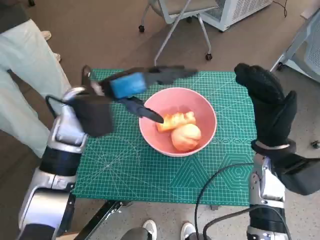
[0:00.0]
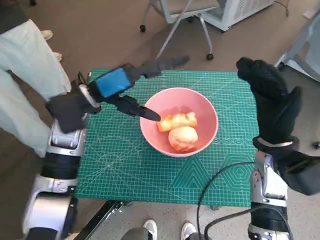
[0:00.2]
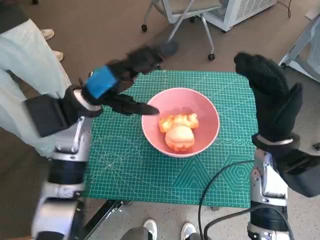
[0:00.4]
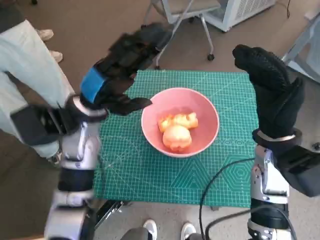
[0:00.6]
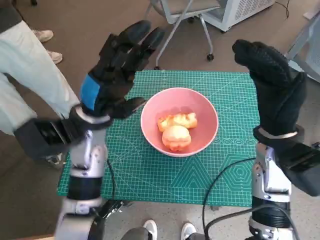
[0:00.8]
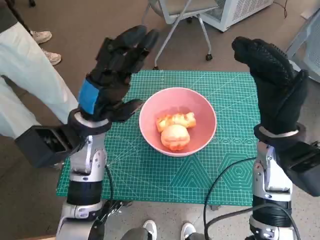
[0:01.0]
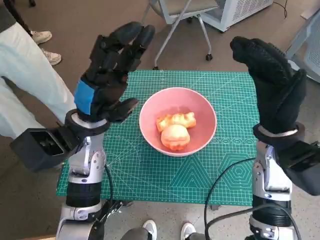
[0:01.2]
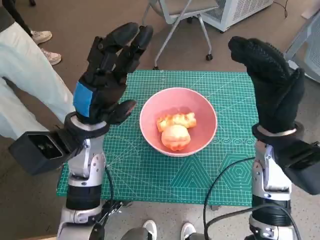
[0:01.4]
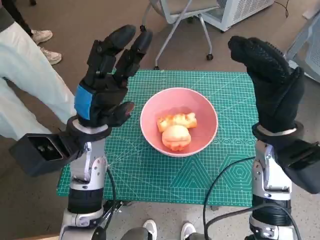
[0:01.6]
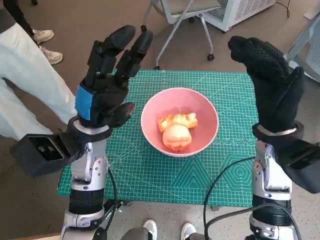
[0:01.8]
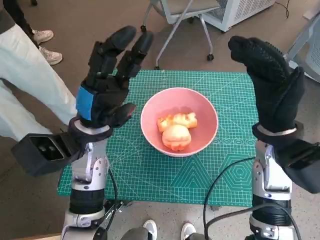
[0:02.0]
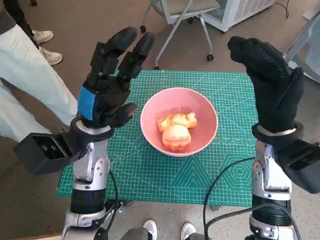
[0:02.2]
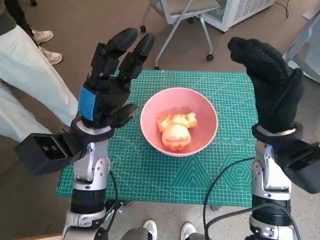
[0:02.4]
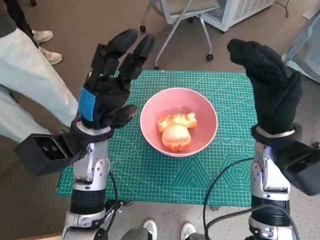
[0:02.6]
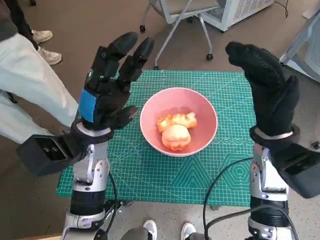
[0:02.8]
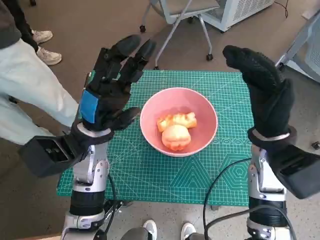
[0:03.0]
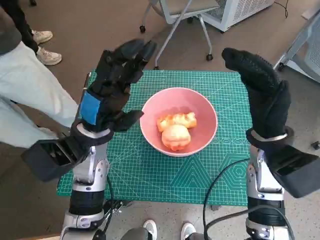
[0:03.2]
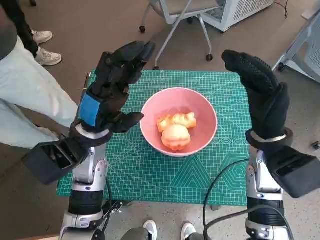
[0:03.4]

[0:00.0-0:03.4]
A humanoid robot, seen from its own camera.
Task of the whole recording: Push the bowl into the center of the table and put the bread into the bowl.
0:00.0 to 0:01.6: The left hand moves approximately 5 cm, while the right hand heads upward, covering approximately 5 cm.

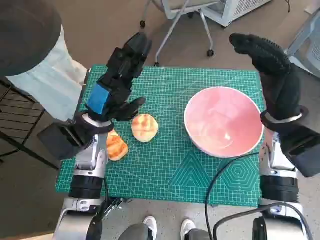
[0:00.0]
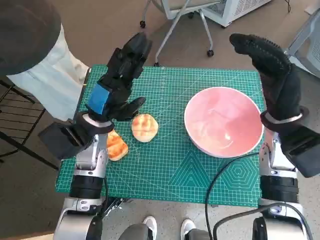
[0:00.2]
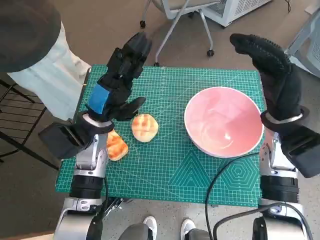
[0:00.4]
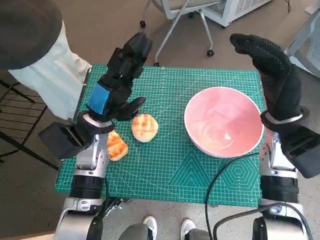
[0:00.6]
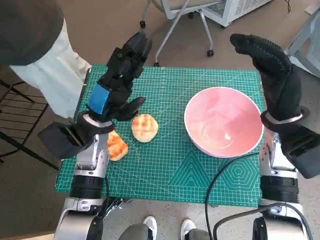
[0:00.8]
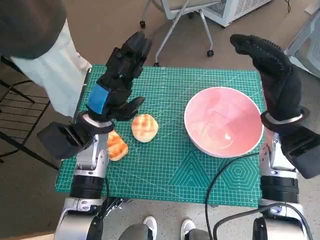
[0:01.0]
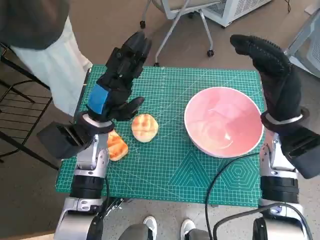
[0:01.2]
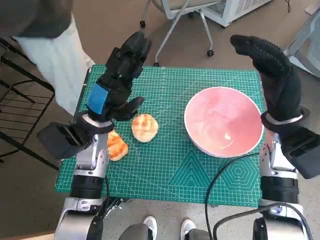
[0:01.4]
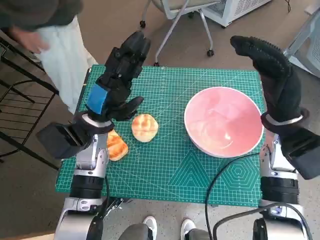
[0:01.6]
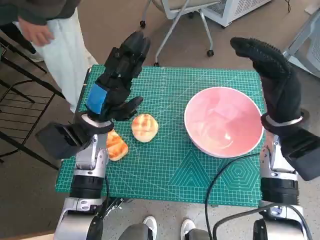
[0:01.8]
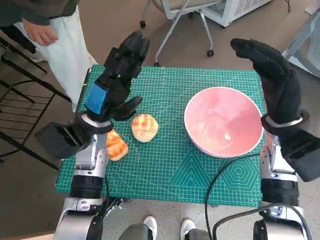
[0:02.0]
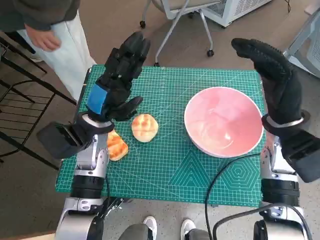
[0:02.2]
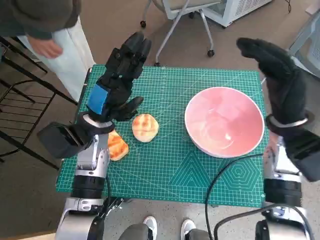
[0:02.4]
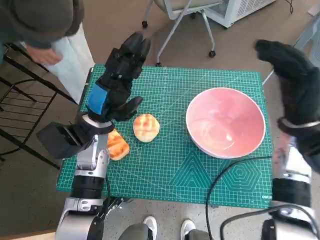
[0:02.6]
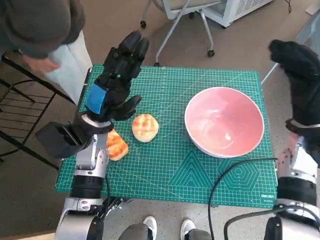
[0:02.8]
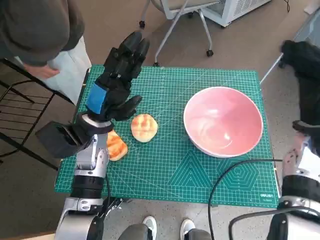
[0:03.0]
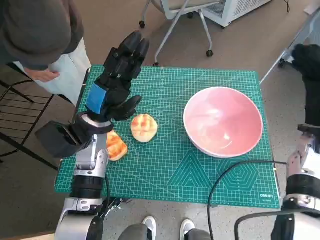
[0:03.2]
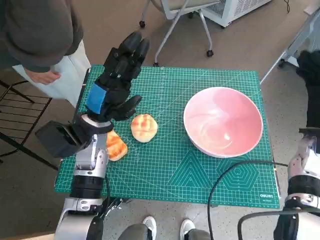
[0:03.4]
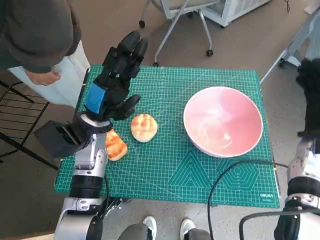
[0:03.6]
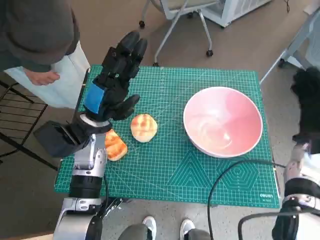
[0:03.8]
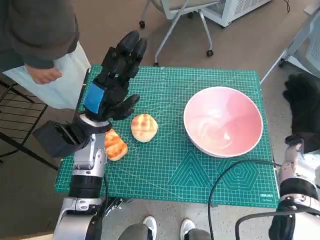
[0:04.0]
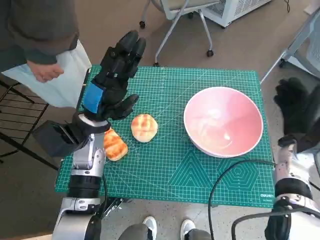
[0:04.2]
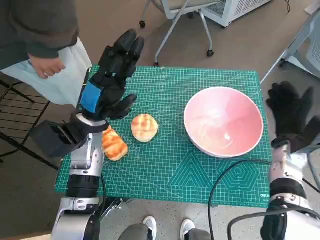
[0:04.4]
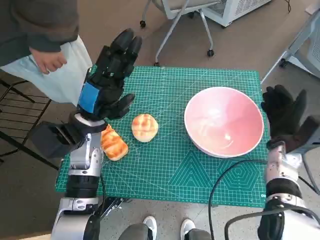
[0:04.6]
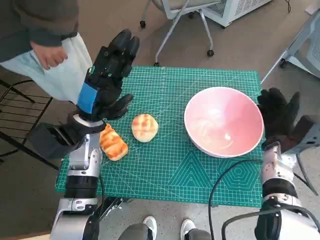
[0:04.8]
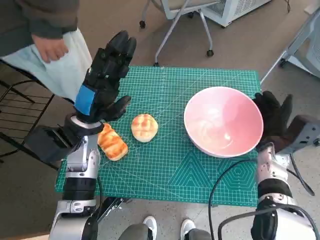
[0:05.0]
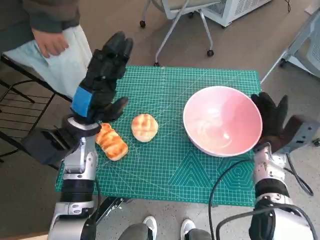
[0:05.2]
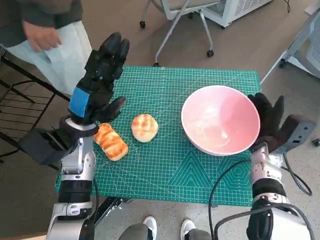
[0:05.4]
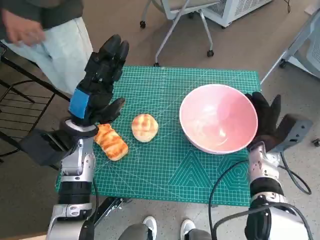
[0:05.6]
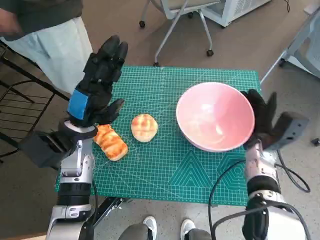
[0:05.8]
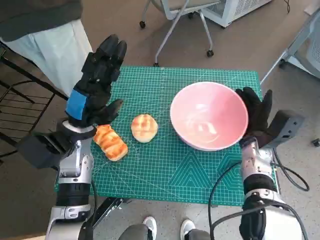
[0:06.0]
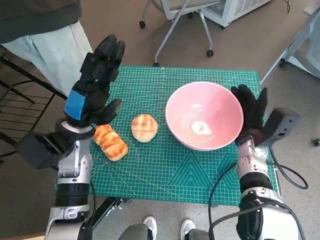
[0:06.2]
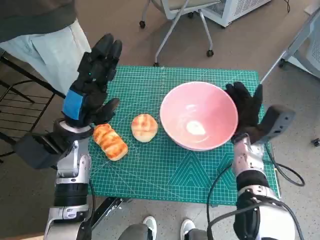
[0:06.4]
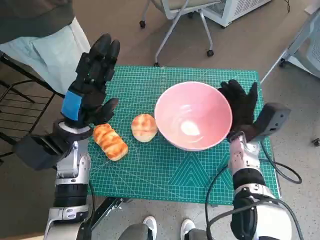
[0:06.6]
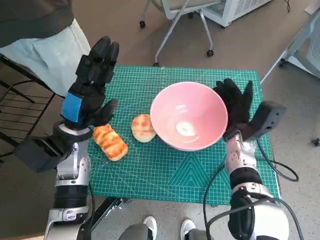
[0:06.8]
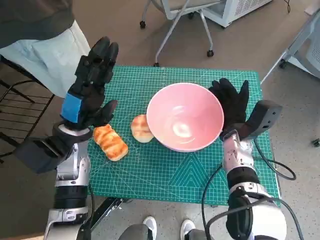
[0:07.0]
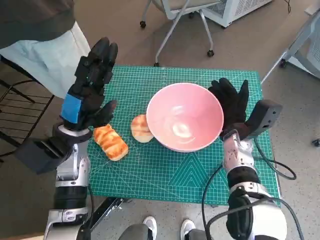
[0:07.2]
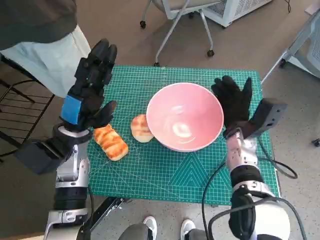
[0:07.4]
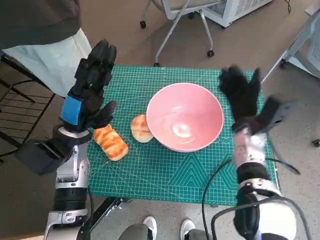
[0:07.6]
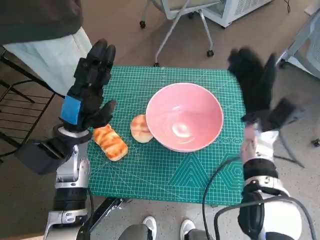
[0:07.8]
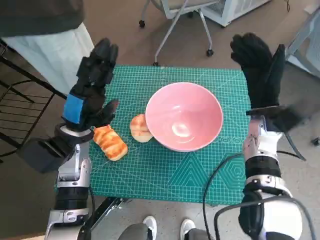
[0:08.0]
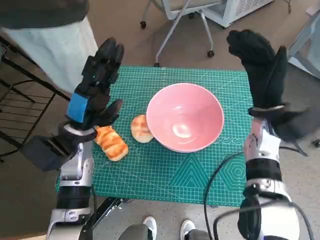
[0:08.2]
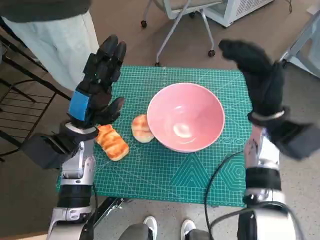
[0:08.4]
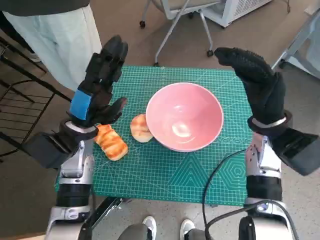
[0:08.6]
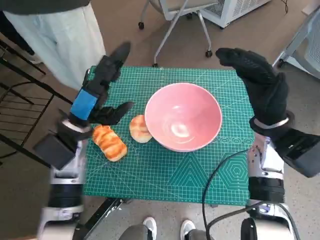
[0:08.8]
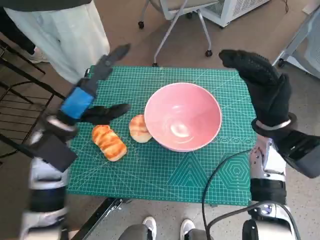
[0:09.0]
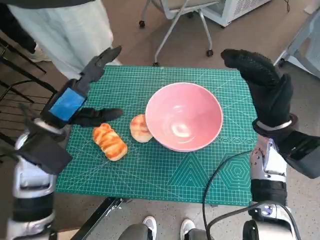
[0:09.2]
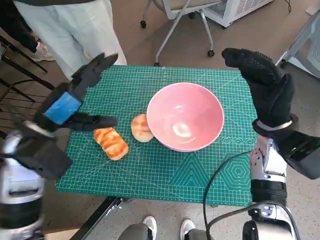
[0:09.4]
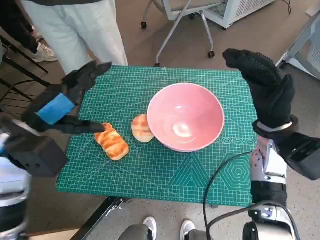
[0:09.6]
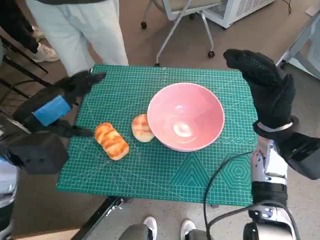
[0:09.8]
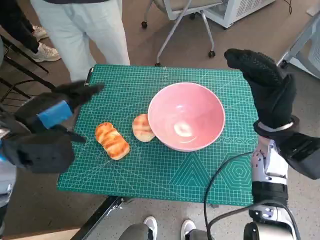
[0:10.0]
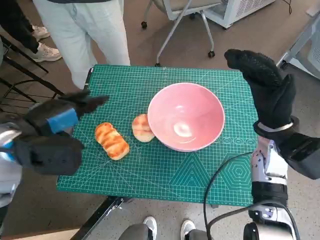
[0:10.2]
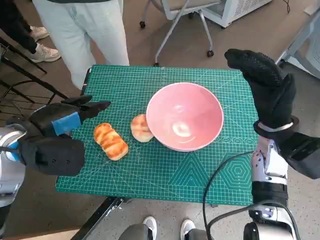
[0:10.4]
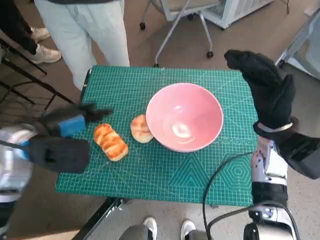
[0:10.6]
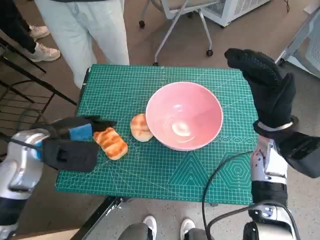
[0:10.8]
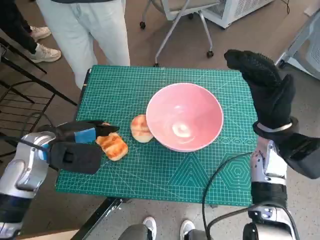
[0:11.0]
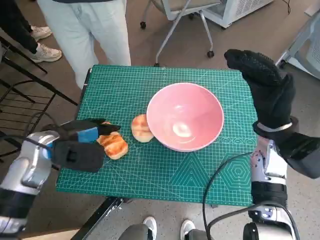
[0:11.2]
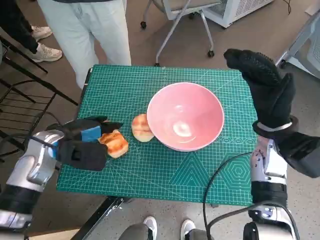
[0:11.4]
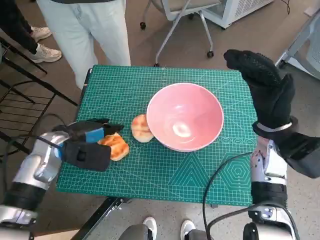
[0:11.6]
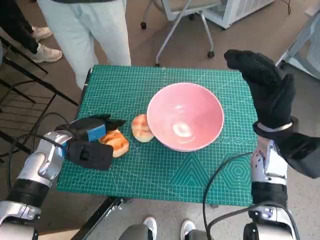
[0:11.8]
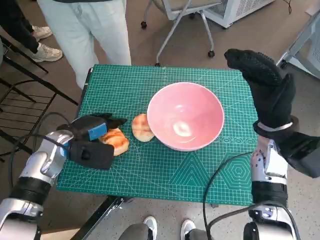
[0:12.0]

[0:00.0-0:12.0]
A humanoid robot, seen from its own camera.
Task of the whole recording: Push the bowl into the center of the table and put the bread into the bowl.
Step, 0:00.0 to 0:07.6: Move the pink bowl to the center of table with right hand.
0:01.6 to 0:03.0: The right hand moves to the right, approximately 5 cm.
0:03.0 to 0:04.4: The right hand travels downward by some 10 cm.
0:04.4 to 0:06.0: The right hand moves to the left, roughly 5 cm.
0:07.6 to 0:09.0: The right hand heads upward, covering about 10 cm.
0:09.0 to 0:10.4: The left hand ends up some 5 cm from where it was.
0:10.4 to 0:12.0: The left hand moves downward, about 10 cm.

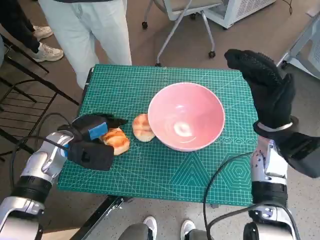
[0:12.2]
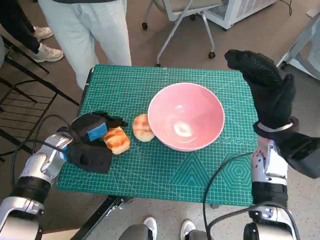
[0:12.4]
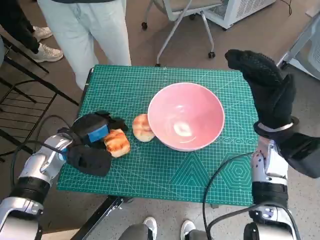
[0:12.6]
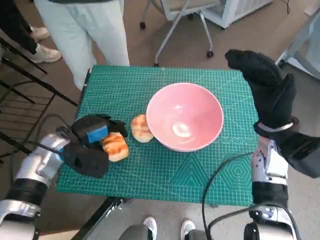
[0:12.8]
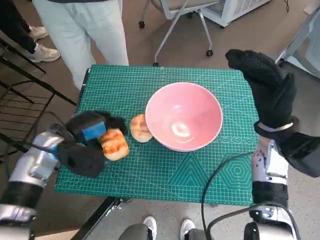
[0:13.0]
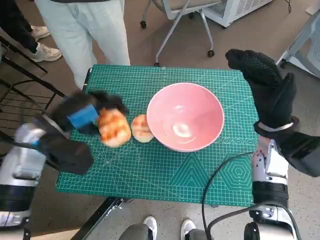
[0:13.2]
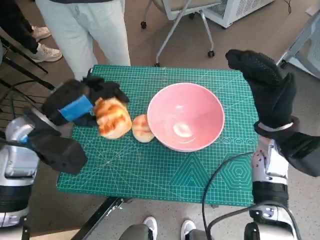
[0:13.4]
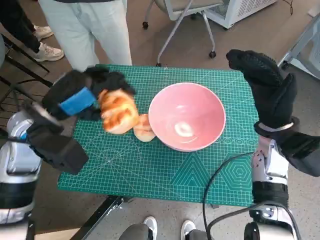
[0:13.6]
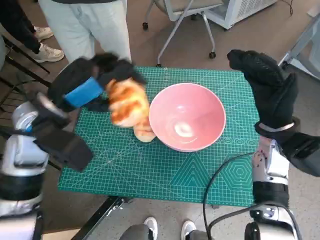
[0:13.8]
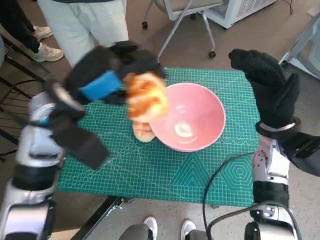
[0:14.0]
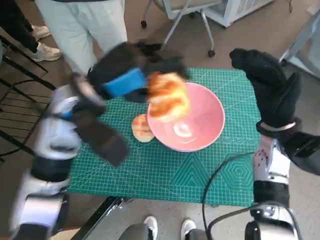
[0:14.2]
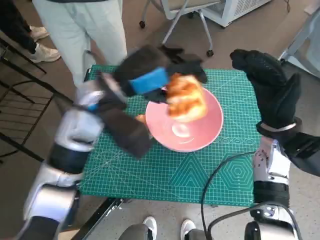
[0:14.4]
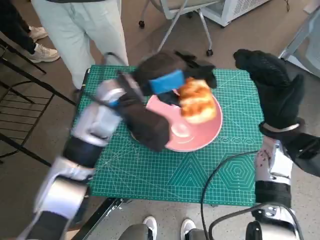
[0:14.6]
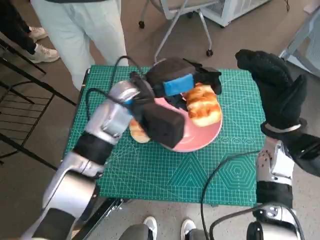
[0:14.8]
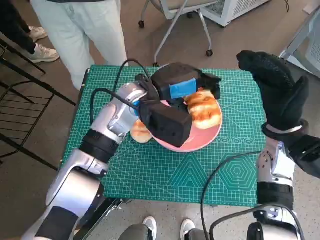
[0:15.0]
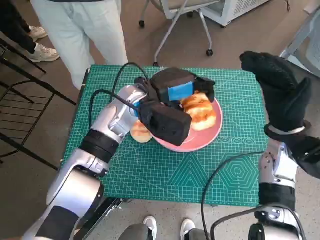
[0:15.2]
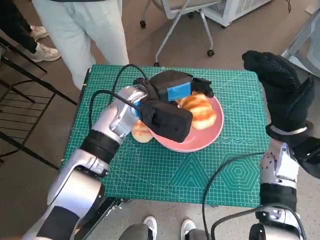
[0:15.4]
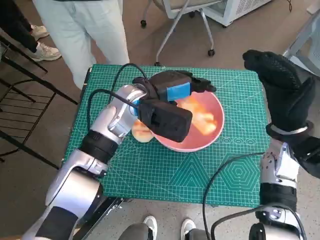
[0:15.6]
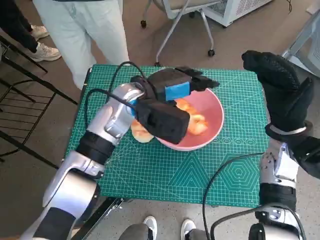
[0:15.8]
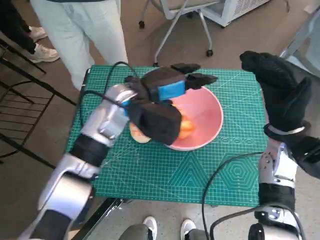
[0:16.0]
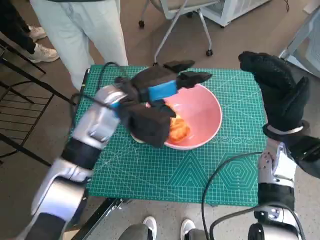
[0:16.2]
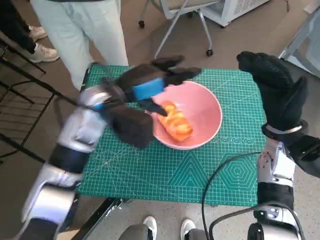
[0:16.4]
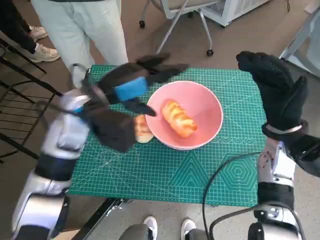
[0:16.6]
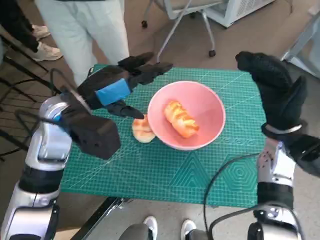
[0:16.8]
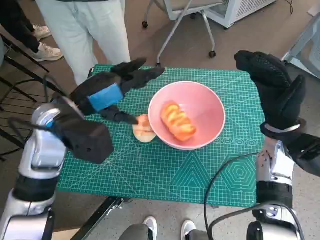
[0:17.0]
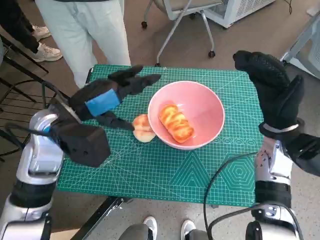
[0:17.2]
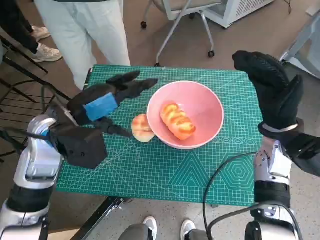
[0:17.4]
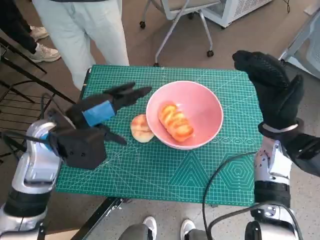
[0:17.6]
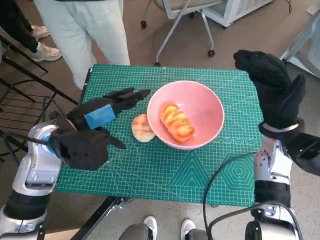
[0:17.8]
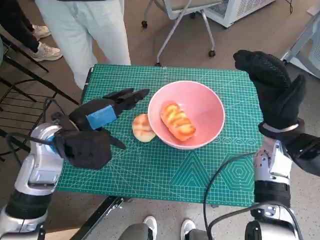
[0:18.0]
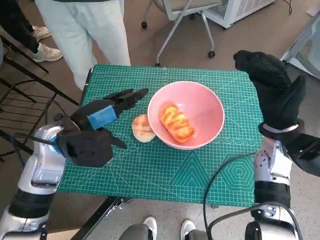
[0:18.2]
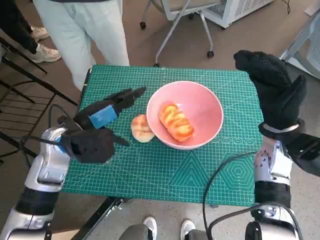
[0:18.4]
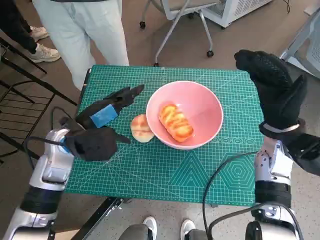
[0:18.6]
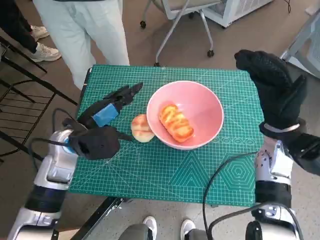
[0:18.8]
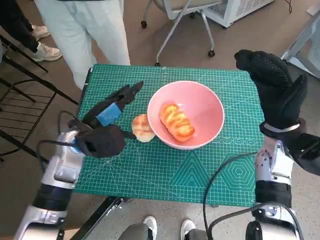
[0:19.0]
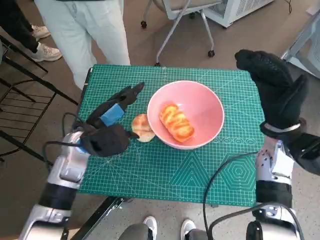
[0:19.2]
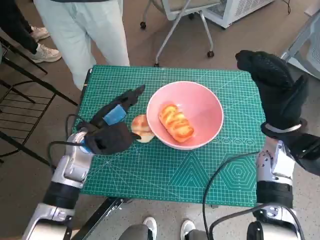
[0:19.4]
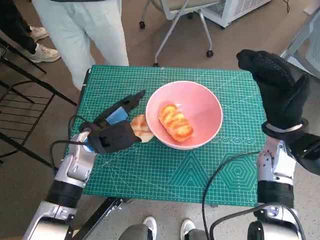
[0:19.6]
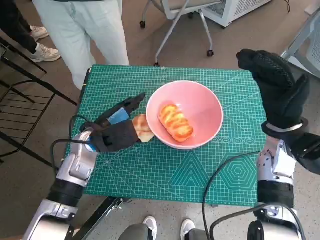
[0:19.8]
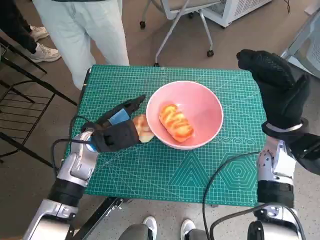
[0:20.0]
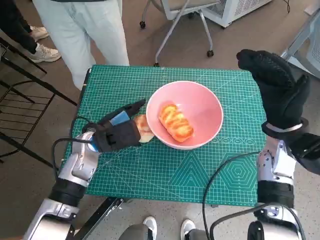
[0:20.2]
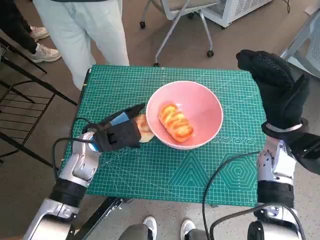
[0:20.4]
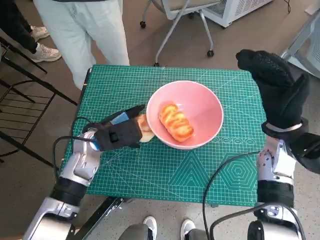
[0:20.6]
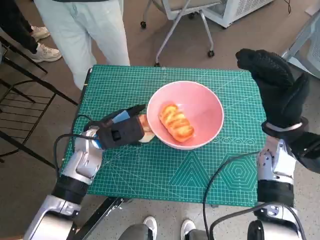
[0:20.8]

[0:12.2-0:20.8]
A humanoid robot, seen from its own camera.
Task of the whole recording: Push the bowl into the center of the table and put the bread into the bowl.
Step, 0:12.4 to 0:16.2: Place the long bread in pink bowl with left hand.
0:12.2 to 0:13.6: The left hand shifts roughly 10 cm upward.
0:13.6 to 0:15.0: The left hand moves to the right and forward, roughly 20 cm.
0:15.0 to 0:16.6: The left hand travels to the left by some 10 cm.
0:16.6 to 0:18.0: The left hand shifts by about 5 cm.
0:18.0 to 0:19.4: The left hand goes approximately 10 cm downward.
0:19.4 to 0:20.8: There are only small adjustments of the hands.
